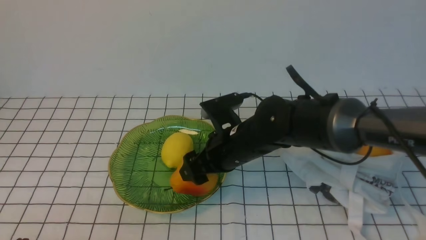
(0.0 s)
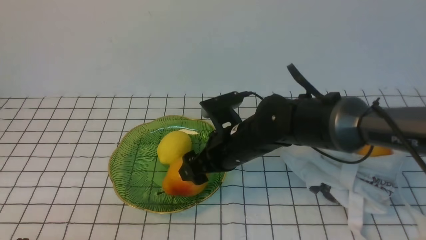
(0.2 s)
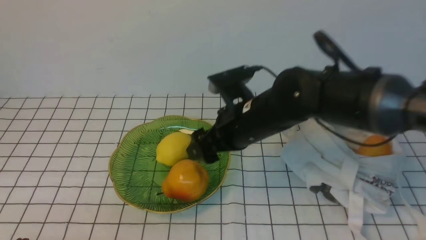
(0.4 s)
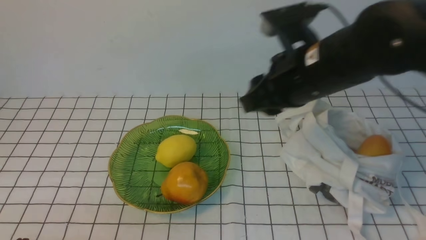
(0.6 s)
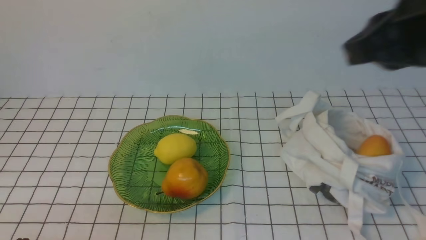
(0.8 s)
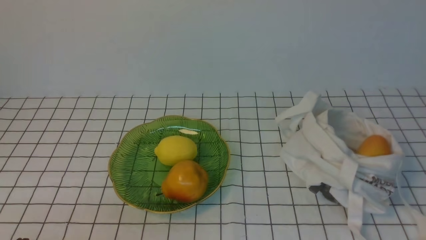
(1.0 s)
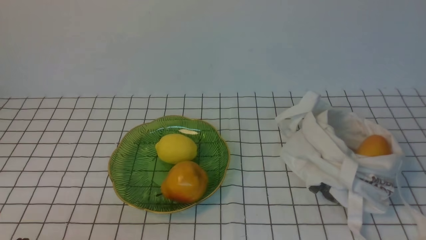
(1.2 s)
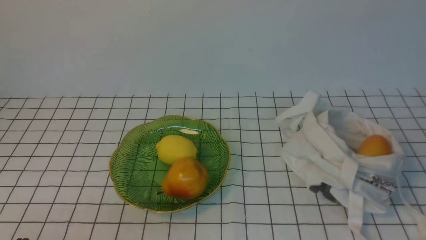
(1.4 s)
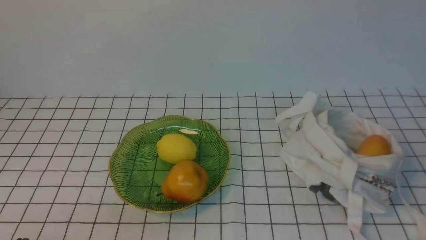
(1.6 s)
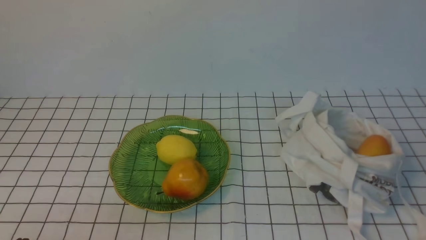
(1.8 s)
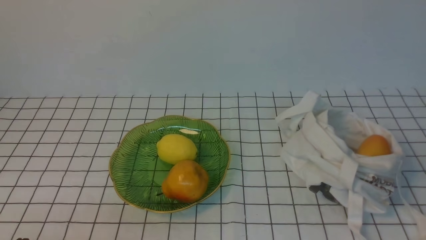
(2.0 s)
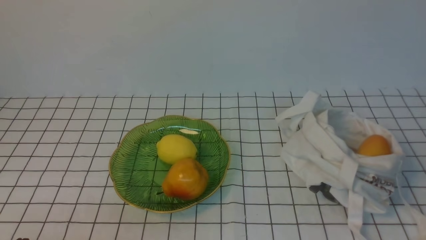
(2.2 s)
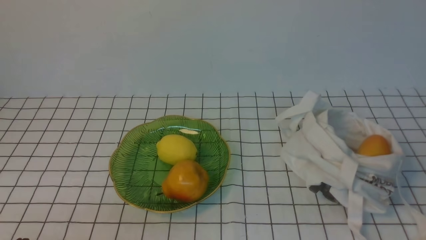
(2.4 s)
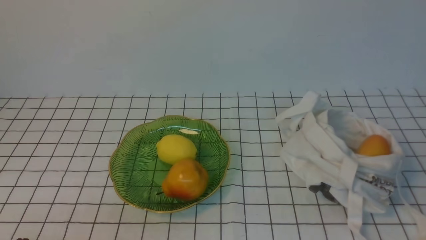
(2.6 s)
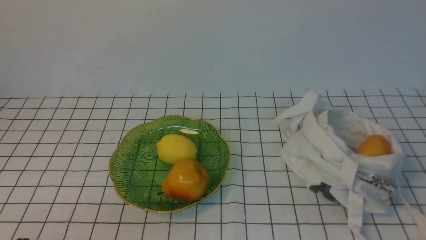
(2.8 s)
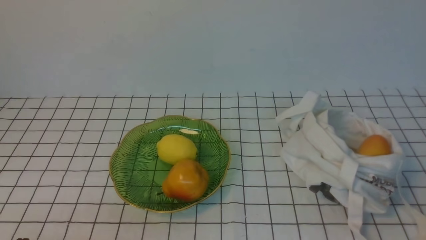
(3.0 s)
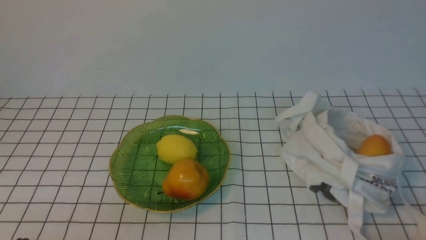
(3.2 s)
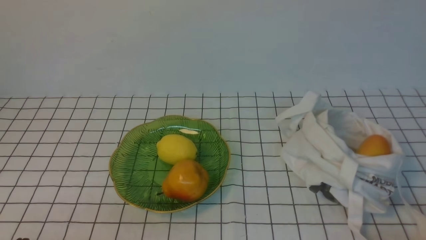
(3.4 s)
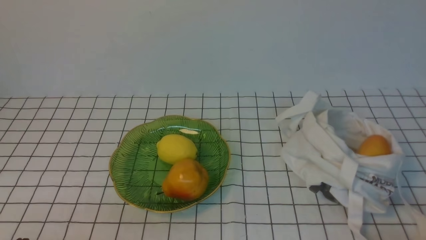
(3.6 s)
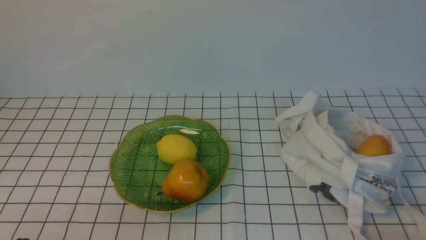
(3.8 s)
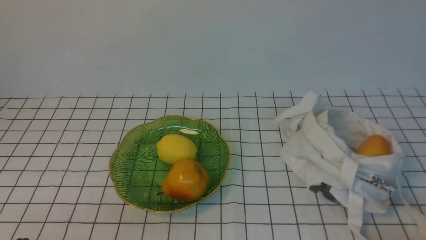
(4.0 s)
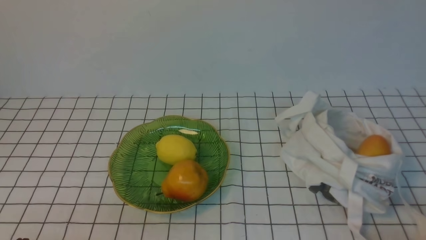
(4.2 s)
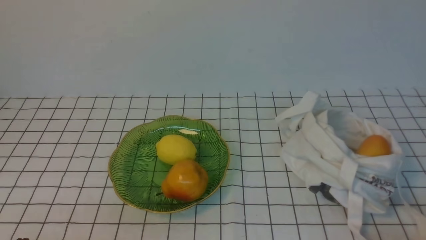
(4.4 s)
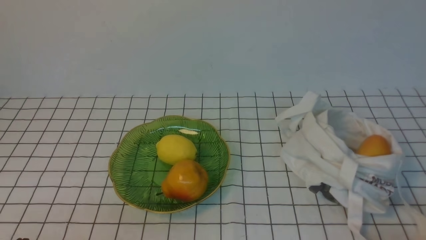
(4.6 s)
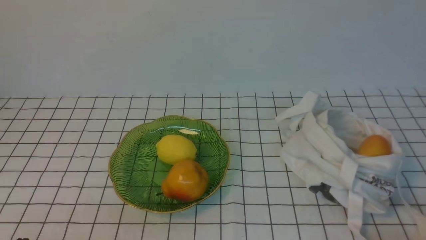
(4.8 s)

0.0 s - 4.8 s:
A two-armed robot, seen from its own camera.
0.0 s - 1.6 s: The right gripper heads backward, to the right and upward, covering approximately 50 cm, and closes.
3.2 s - 4.8 s: The two grippers keep their place.

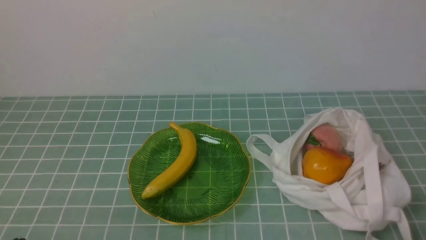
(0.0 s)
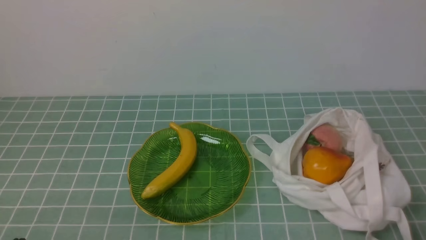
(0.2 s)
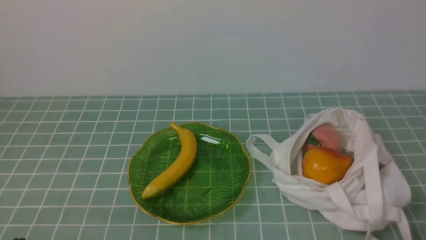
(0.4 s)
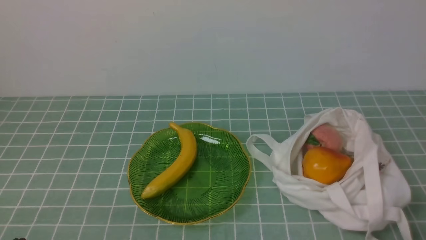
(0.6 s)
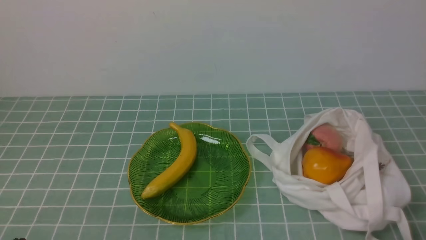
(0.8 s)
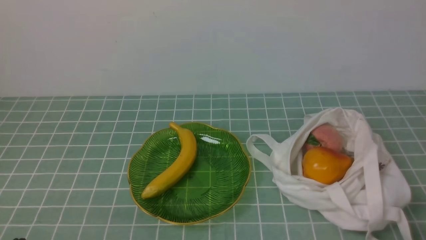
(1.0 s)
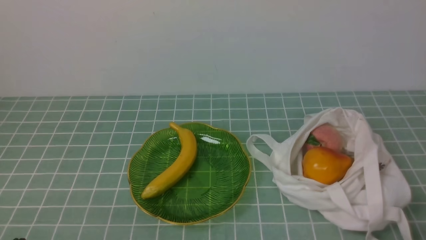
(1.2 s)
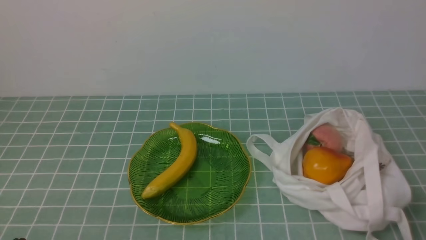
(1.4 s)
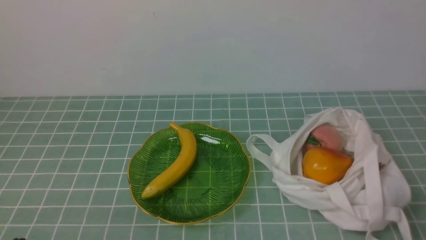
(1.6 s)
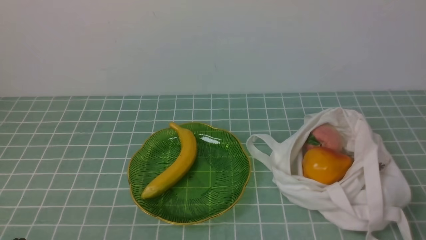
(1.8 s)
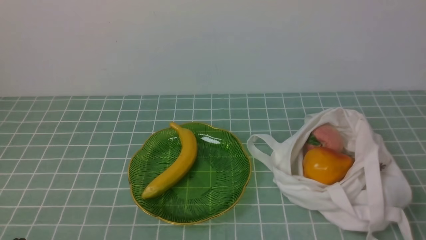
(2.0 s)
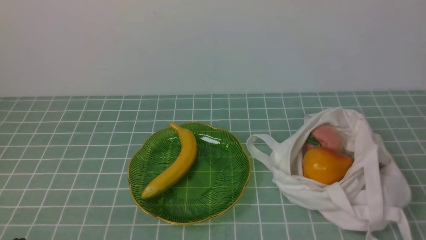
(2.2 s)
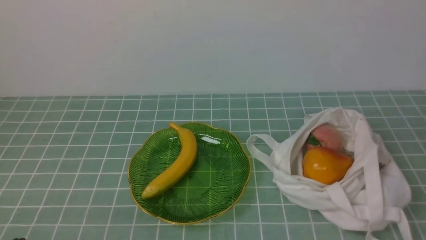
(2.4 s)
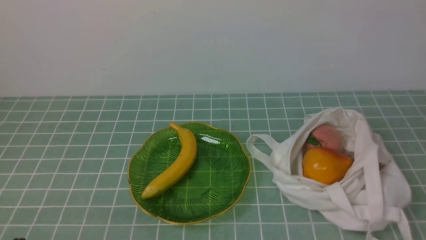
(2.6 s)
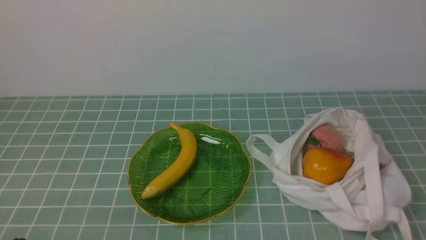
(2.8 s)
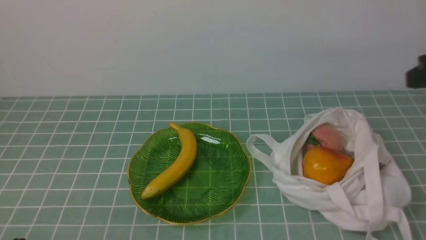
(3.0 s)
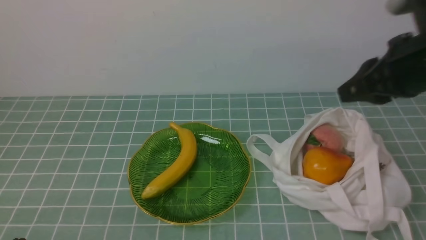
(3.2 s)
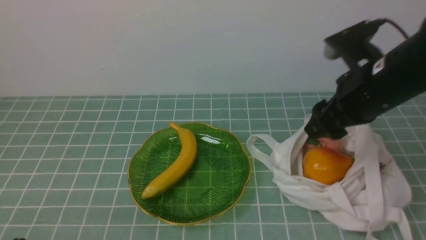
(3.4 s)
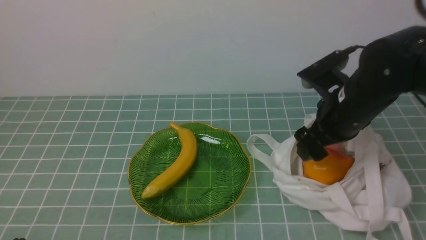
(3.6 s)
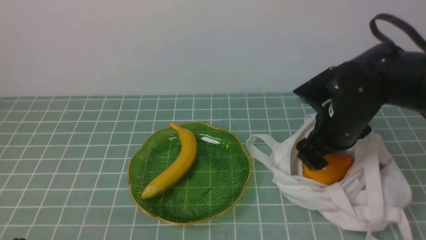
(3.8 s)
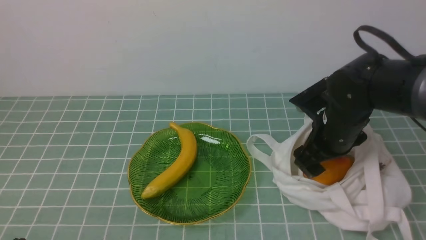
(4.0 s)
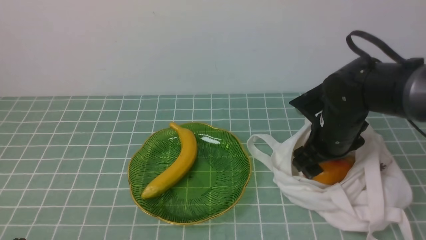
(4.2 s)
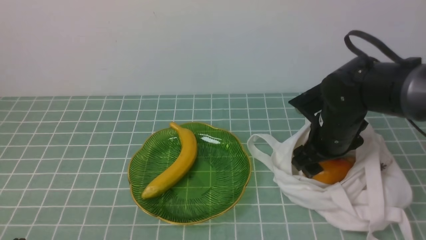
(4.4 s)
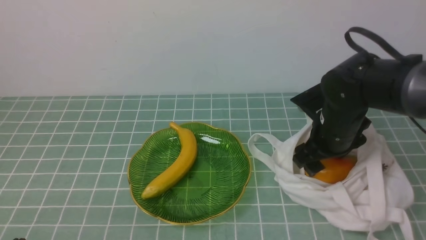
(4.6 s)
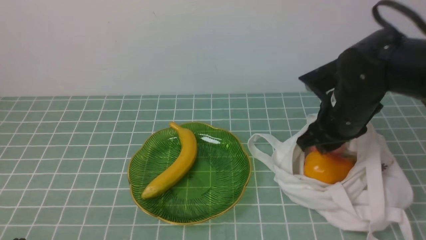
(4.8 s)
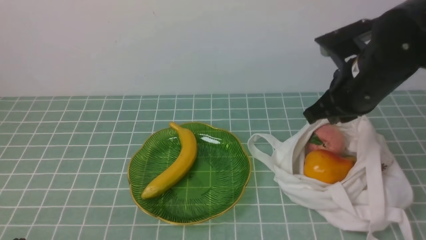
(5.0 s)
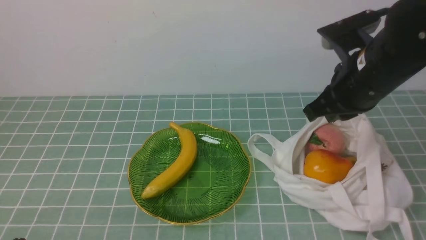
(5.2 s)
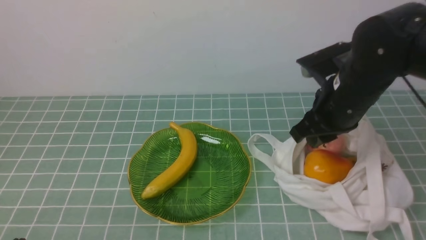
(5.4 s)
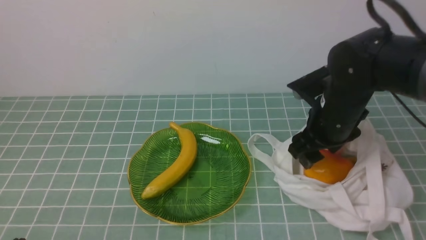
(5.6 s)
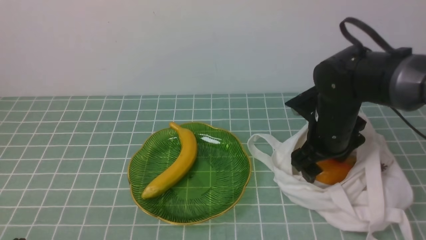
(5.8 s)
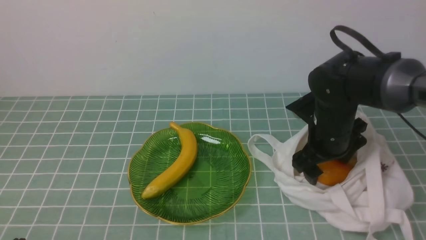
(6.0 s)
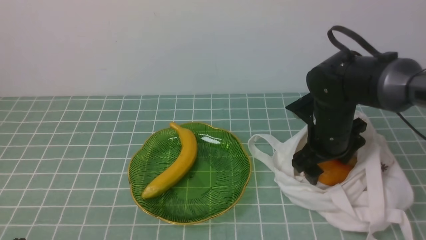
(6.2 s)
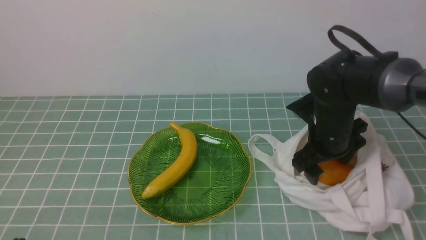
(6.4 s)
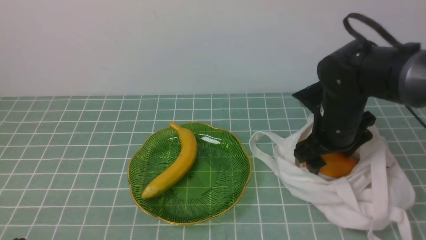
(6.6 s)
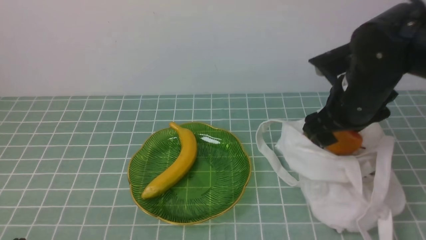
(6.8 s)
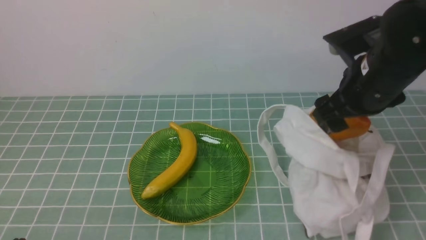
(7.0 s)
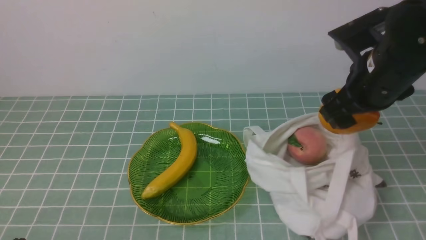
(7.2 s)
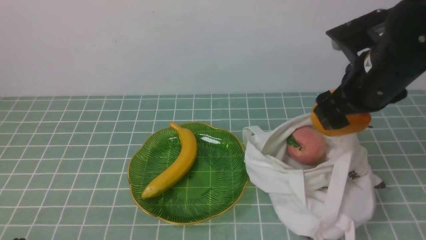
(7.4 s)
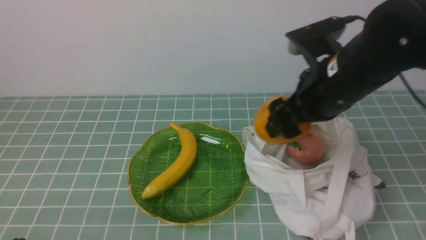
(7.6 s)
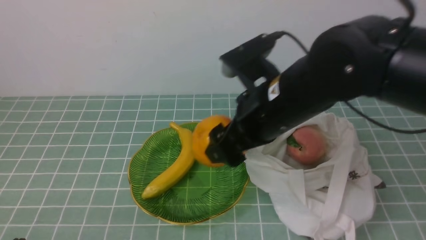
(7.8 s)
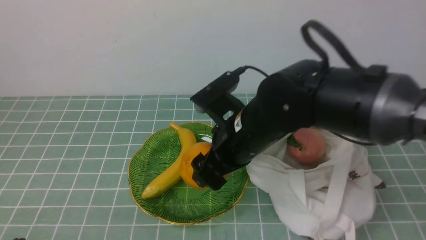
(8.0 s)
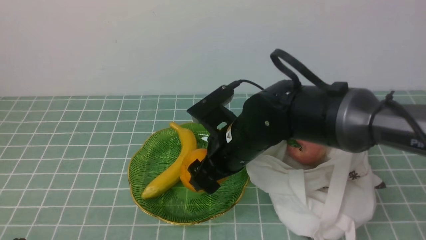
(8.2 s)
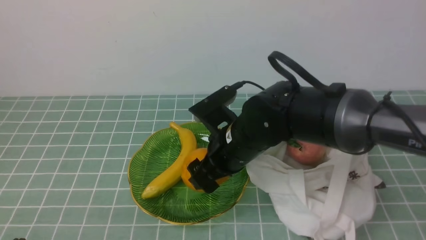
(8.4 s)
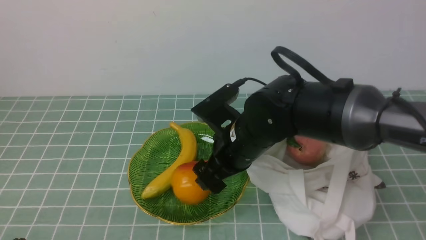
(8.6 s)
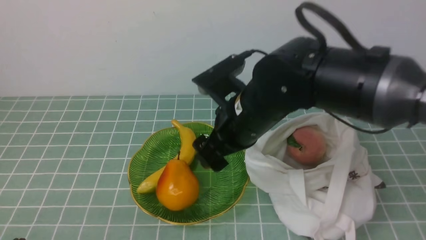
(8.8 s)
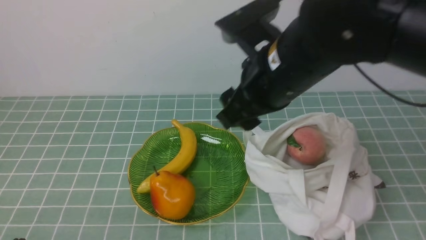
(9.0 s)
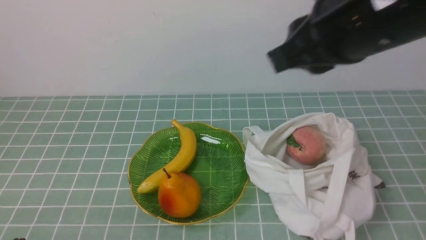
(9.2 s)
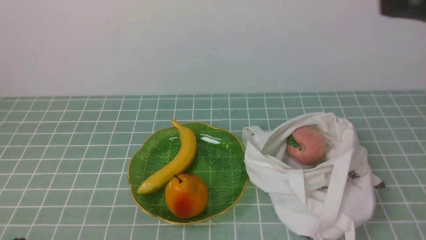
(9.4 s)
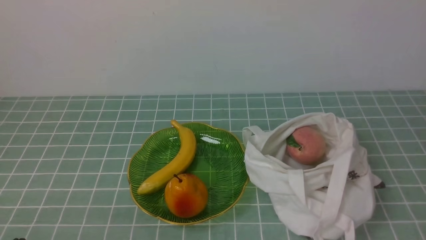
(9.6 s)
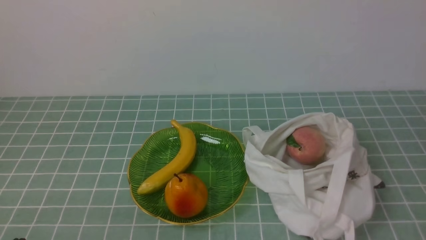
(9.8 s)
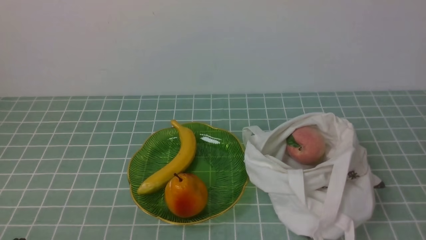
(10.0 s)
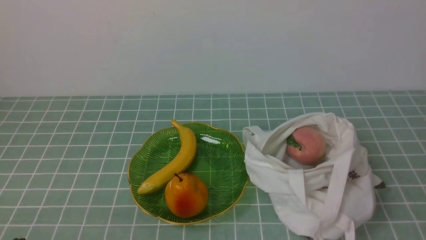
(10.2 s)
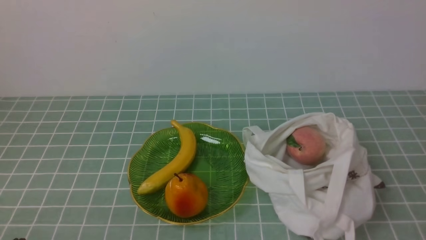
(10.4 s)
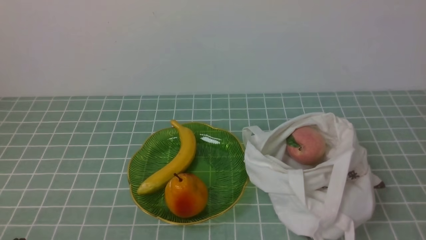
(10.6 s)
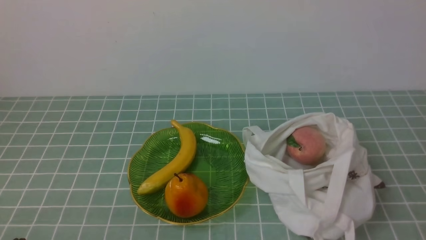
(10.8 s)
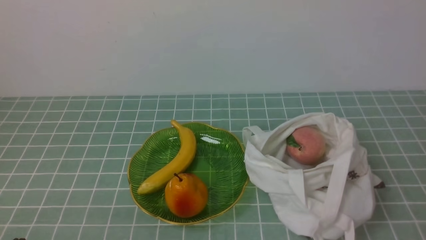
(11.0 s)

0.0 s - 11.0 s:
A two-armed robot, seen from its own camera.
Step, 0.0 s - 7.0 s: use the right arm to grab a pear from the bag.
Step, 7.2 s - 8.6 s: use the right arm to put the pear into the empty plate on the left.
1.6 s - 3.2 s: The right gripper shifts some 25 cm forward and upward, and opens.
3.2 s - 4.8 s: The right gripper goes some 10 cm downward and to the left, and opens, then closes once more.
4.8 s - 6.2 s: The right gripper heads downward, covering some 5 cm, and opens up.
6.2 s - 7.8 s: The right gripper travels upward, to the left and backward by roughly 15 cm.
7.8 s - 9.4 s: The right gripper shifts about 25 cm upward, backward and to the right, and closes.
9.4 s - 11.0 s: The right gripper shifts approximately 20 cm downward and backward.

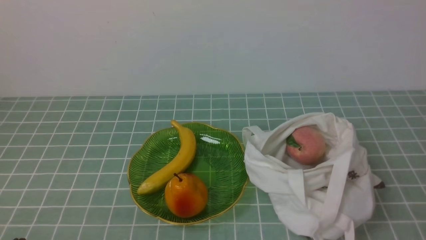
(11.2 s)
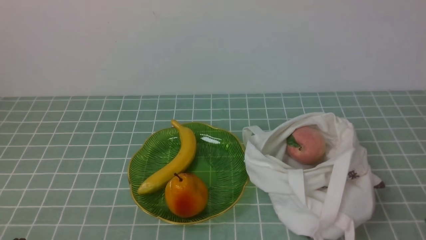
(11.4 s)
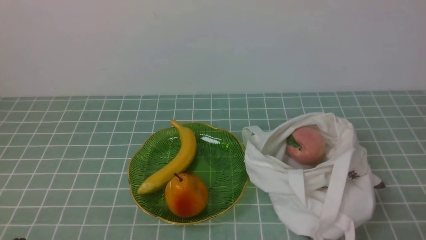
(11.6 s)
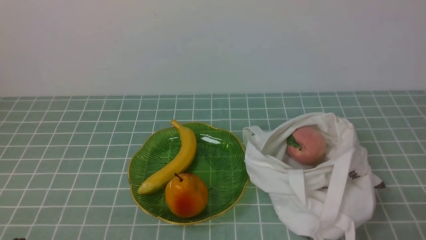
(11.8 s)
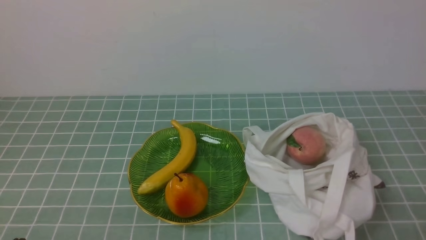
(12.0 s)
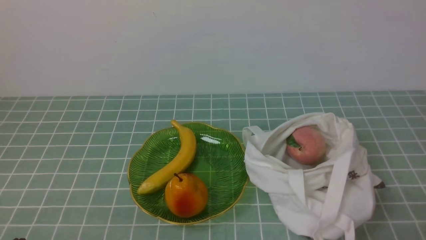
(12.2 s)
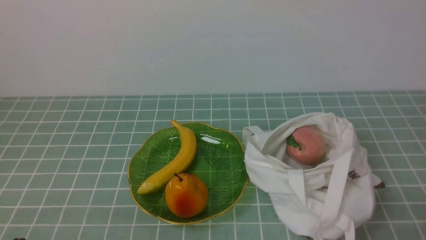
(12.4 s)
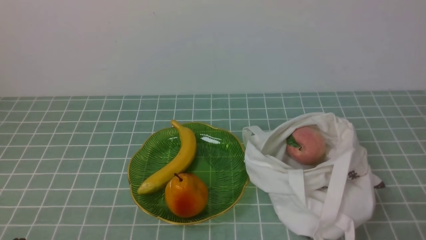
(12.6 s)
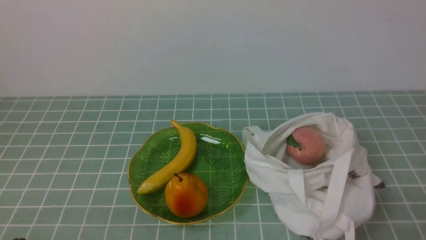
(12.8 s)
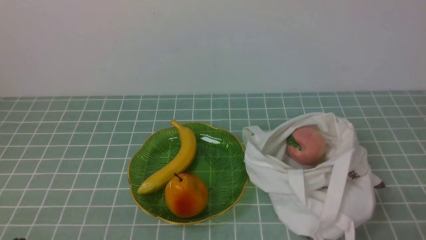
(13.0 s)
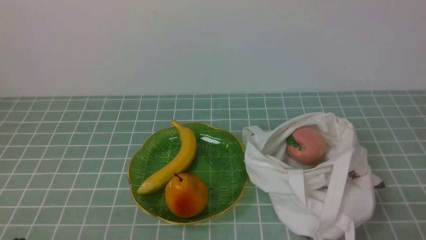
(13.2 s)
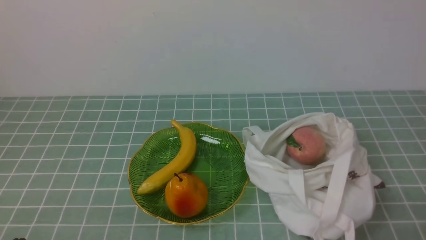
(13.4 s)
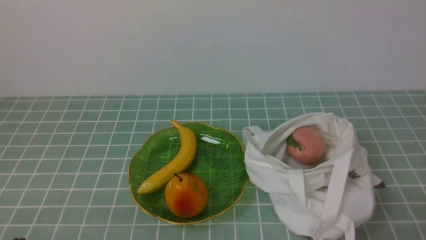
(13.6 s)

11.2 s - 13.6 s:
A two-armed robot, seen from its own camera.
12.4 s - 13.6 s: Both grippers stay about where they are.
